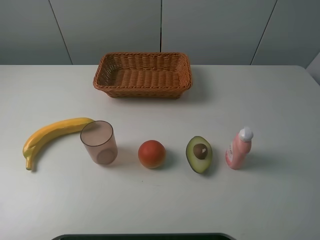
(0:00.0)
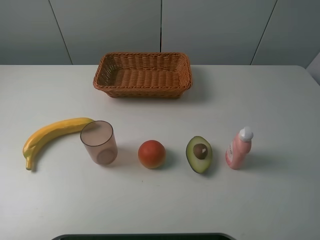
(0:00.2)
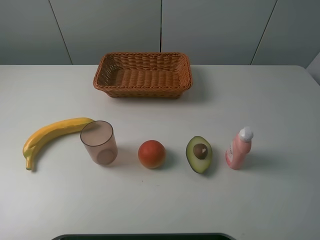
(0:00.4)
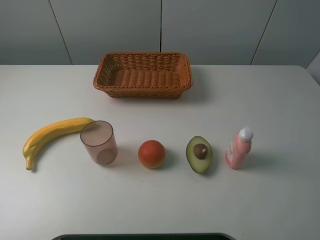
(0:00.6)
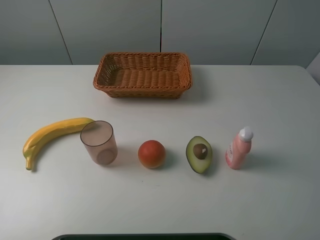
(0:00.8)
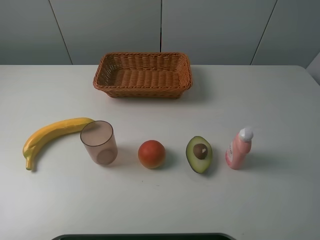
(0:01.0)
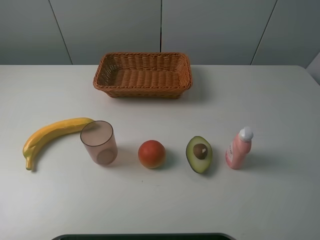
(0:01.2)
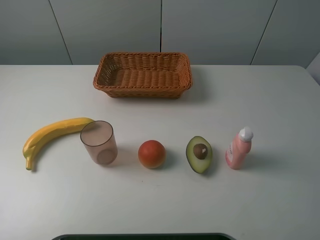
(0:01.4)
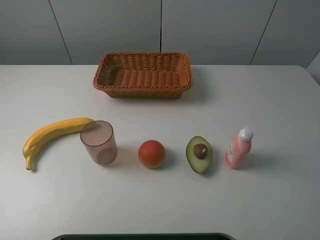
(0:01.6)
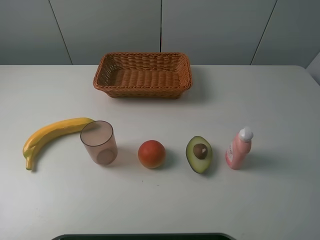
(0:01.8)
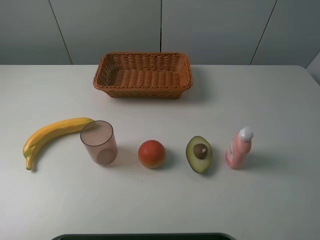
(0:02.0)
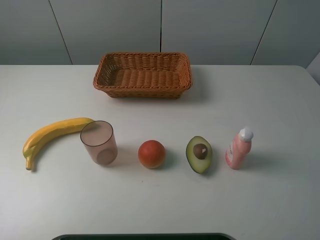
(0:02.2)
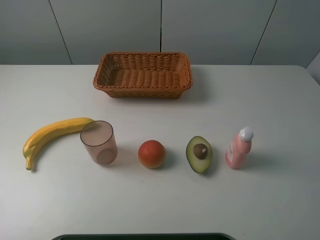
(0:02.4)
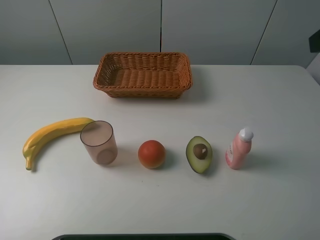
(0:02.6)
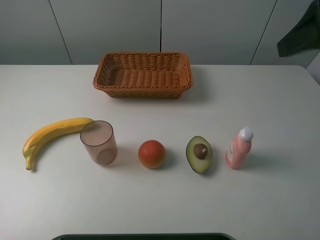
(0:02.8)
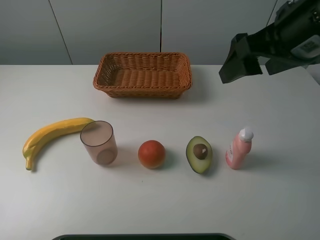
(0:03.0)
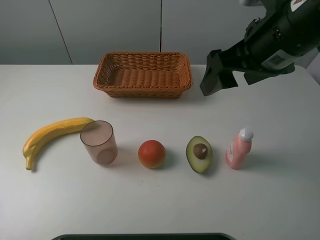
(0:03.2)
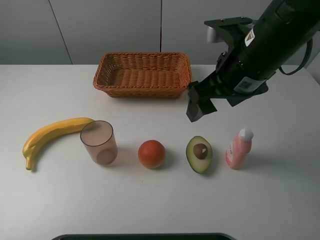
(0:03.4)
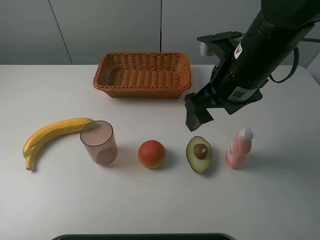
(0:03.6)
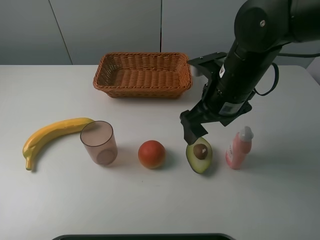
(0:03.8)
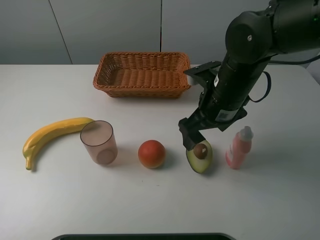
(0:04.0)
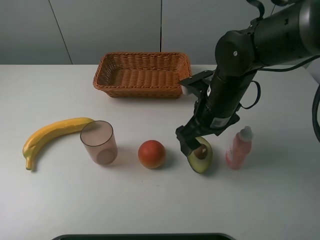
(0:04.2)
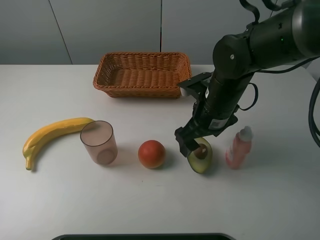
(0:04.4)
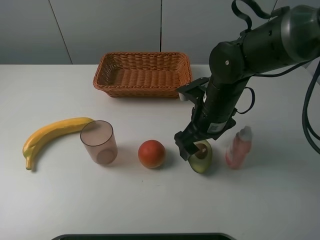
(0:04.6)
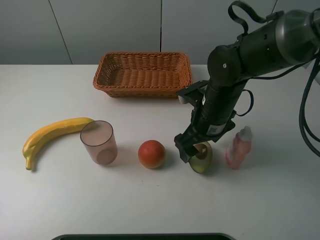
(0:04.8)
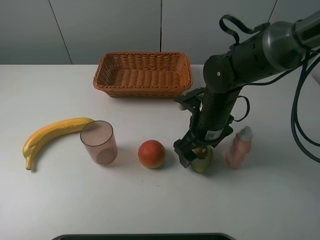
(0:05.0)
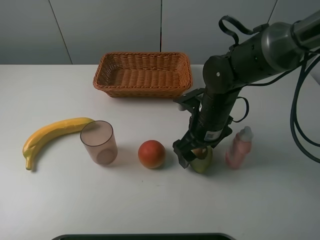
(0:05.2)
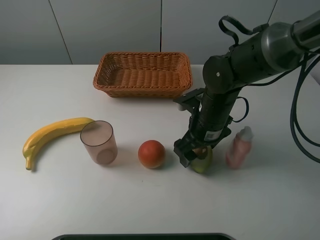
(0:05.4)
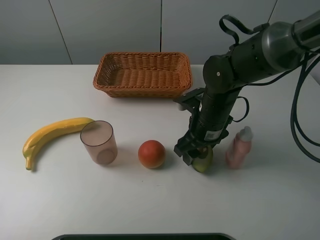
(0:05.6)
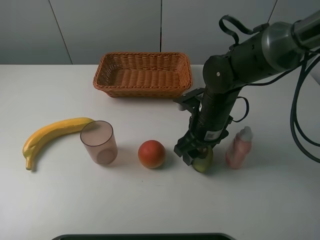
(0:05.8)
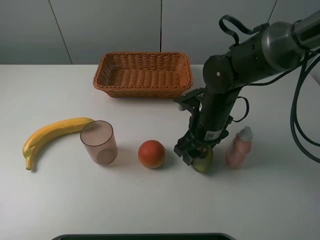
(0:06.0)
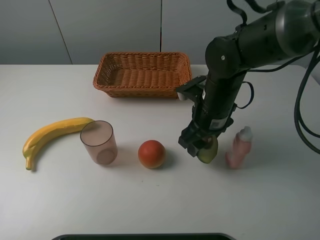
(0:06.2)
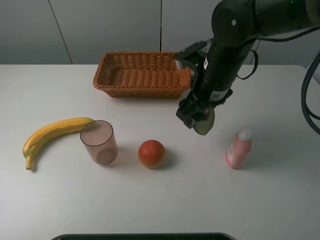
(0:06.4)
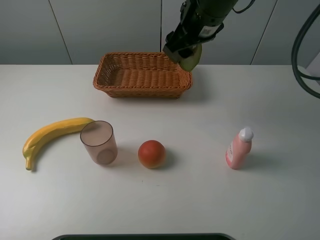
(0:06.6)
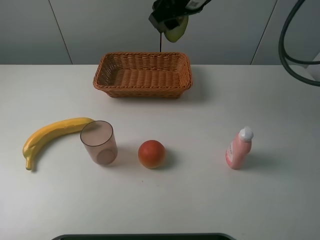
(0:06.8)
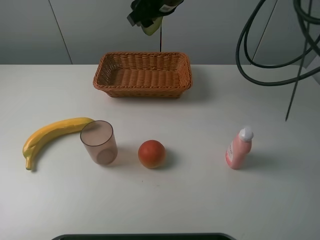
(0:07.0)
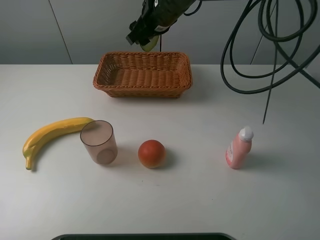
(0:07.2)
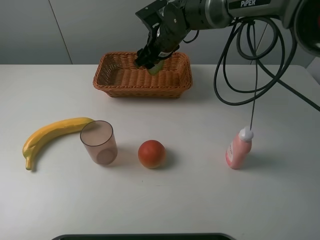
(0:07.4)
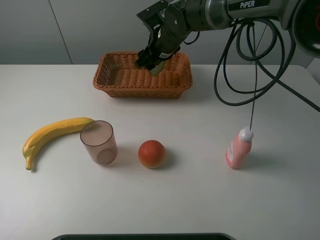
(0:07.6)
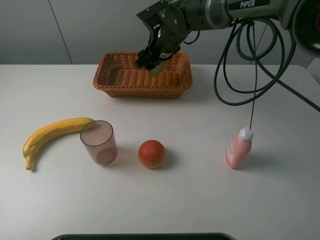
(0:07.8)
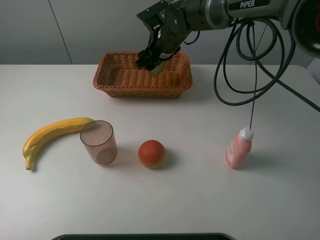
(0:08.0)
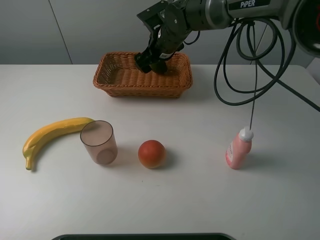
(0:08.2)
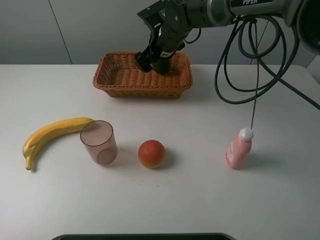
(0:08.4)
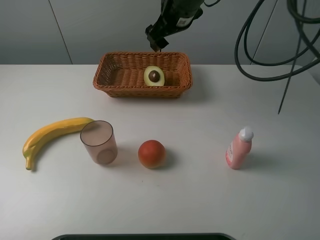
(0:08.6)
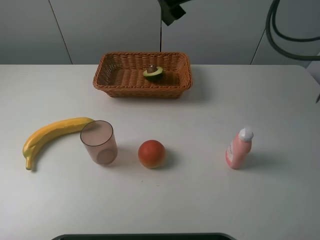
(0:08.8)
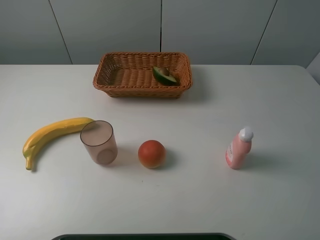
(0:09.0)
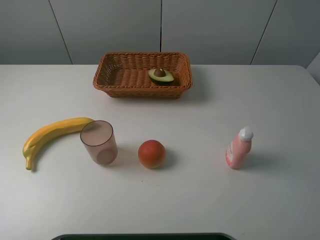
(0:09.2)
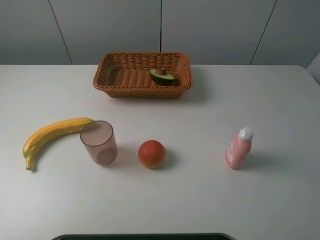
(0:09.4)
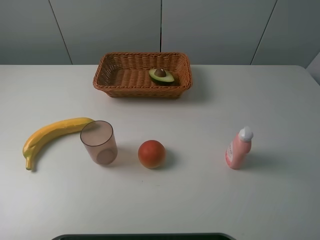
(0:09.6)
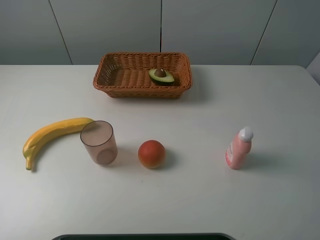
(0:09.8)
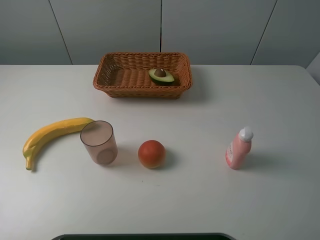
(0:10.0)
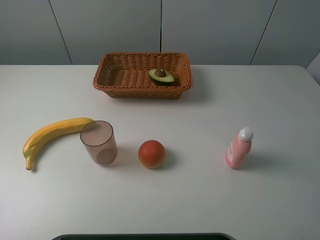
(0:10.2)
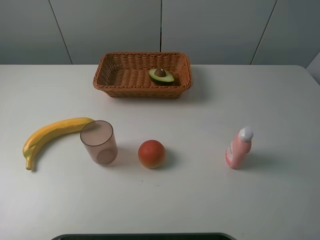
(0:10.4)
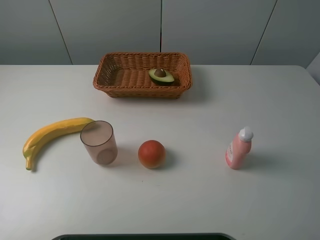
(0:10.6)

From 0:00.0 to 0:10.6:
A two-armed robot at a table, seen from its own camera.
Task of the whole recording: randomly pick up an item from the table and put it in the basket.
Step, from 0:00.0 to 0:05.6: Grasp the avocado with the right gripper.
Step, from 0:05.8 to 0:08.2: Place the avocado into the basket with the right gripper.
From 0:00.0 to 0:01.6: The two grippers keep their place.
From 0:01.6 to 0:03.0: The right gripper shifts approximately 25 cm forward and to the left.
From 0:03.0 to 0:04.6: The right gripper heads downward, covering roughly 20 cm.
From 0:04.6 to 0:06.0: The right gripper closes its fingers.
From 0:06.0 to 0:07.6: The right gripper is displaced forward and to the left by some 20 cm, and travels upward and back again, about 20 cm each way.
From 0:07.6 to 0:09.0: The right gripper moves upward, backward and to the right, approximately 35 cm, and opens up.

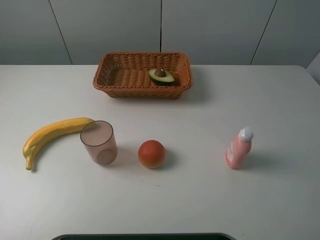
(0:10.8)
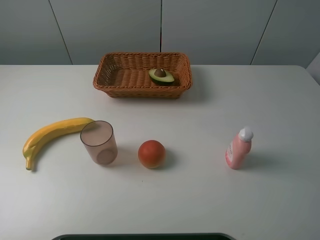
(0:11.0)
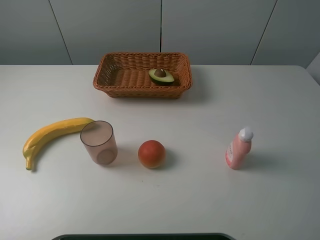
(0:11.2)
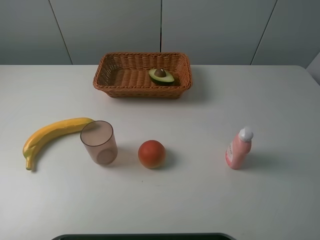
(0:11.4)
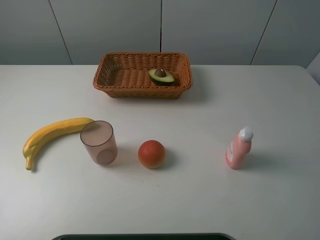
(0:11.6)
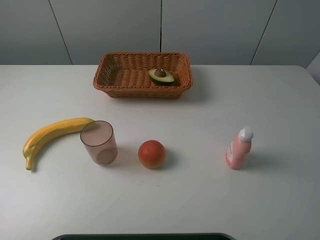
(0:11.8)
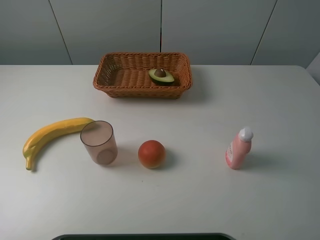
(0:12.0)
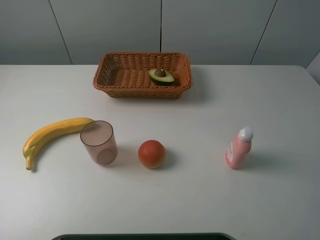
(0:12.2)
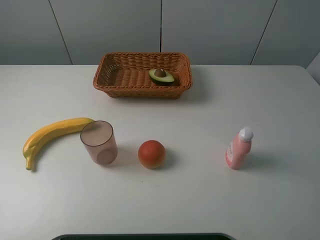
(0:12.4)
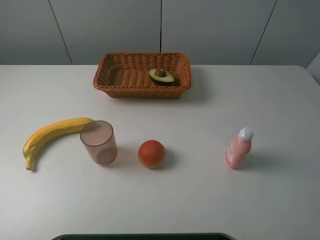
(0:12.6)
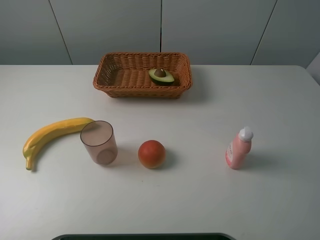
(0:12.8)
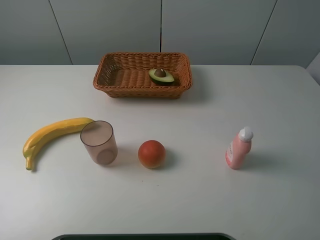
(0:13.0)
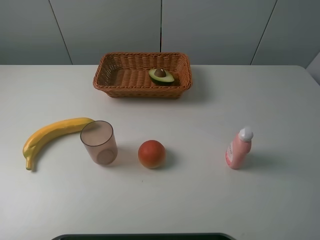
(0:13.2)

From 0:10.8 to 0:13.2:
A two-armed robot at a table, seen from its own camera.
Task of the whole recording: randomly pick up an item from the table and put it in the basket.
From 0:12.0 to 0:13.2: Both grippers stay put.
